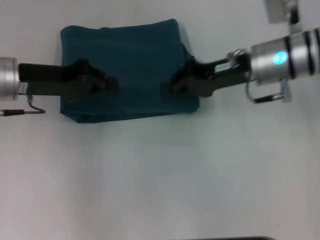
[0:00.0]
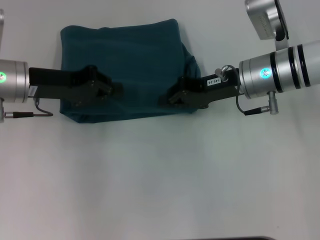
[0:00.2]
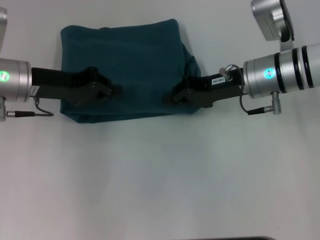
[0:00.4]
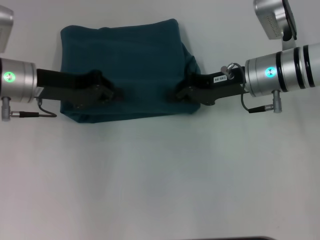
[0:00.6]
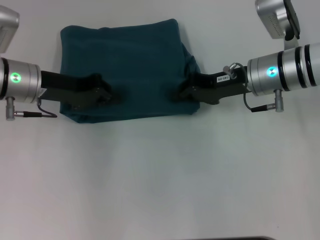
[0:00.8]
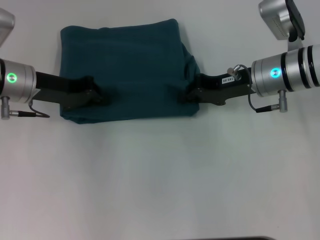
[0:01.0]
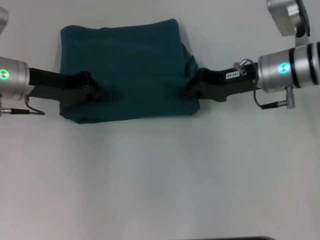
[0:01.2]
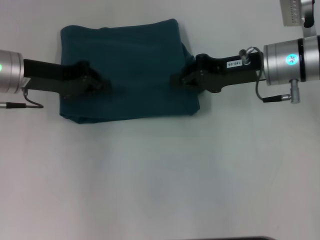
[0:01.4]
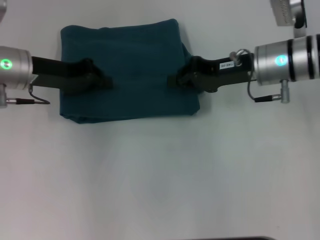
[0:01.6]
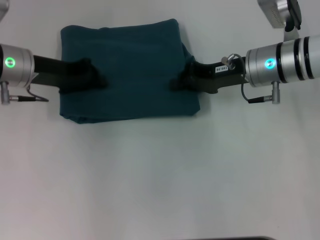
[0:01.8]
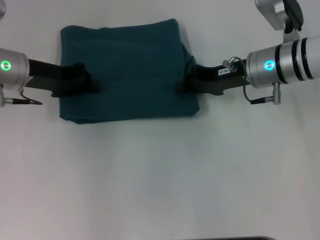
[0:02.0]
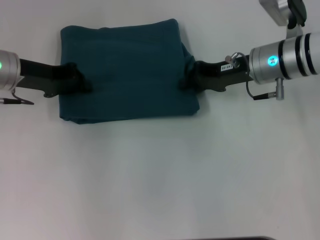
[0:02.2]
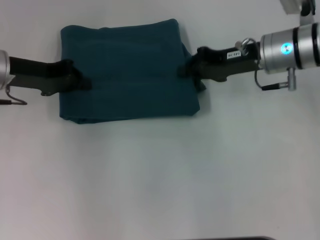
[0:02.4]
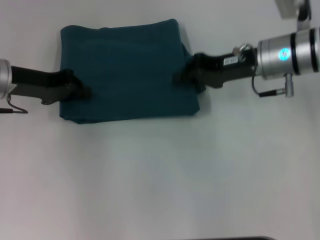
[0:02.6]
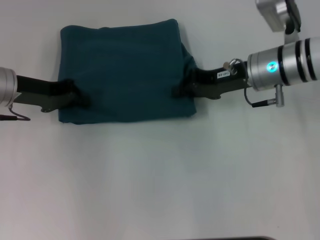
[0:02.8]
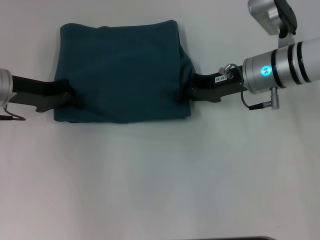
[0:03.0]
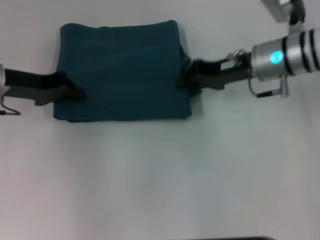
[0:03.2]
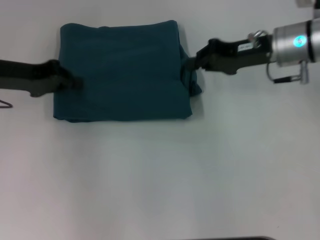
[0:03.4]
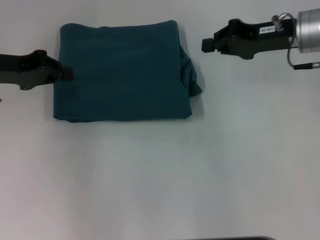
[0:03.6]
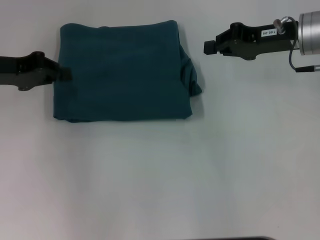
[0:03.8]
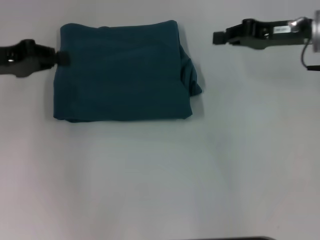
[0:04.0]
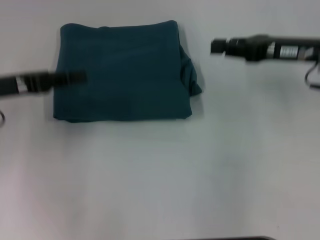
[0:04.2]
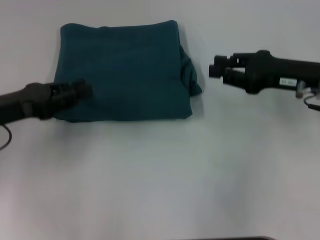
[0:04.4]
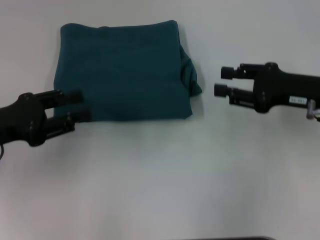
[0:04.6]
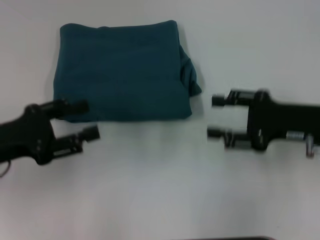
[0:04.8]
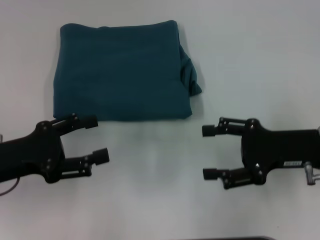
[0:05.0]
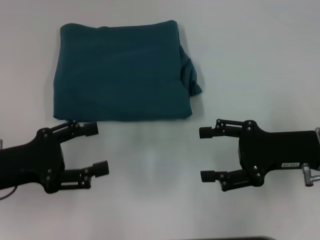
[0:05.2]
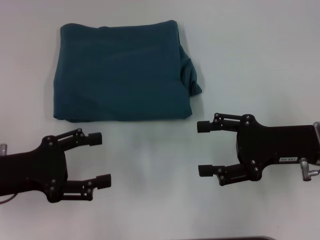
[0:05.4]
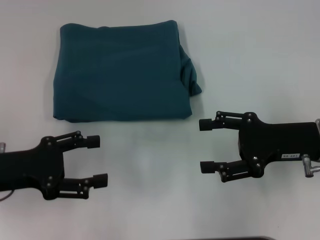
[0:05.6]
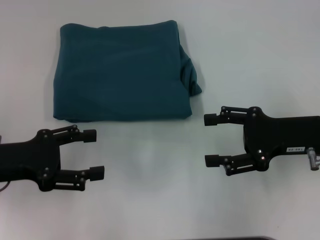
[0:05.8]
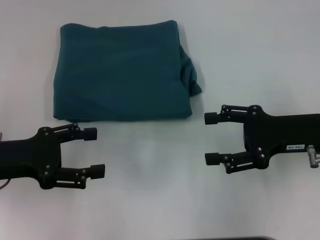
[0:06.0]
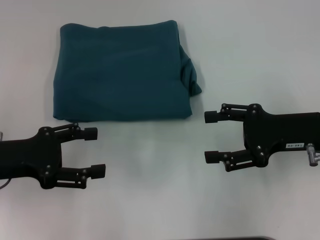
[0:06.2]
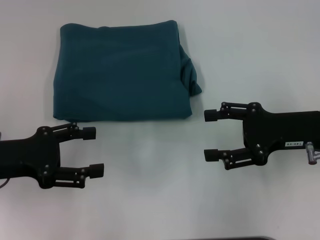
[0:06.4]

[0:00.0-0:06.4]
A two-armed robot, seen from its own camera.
0:00.0 to 0:01.6: The grippers make only small movements.
0:01.6 to 0:03.2: The grippers stay close to where they were, moving slightly.
0:03.2 to 0:04.8: The left gripper is displaced backward by about 15 cm, and opens up; the right gripper moves backward and to the right, approximately 15 cm, and opens up.
0:04.8 to 0:06.4: The left gripper opens.

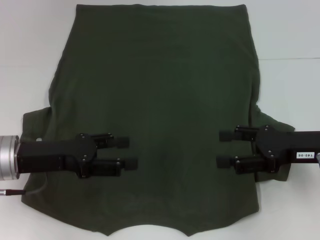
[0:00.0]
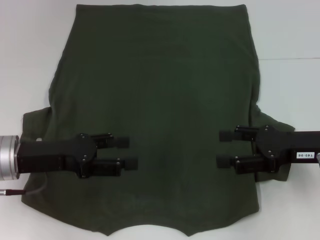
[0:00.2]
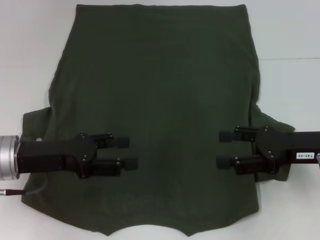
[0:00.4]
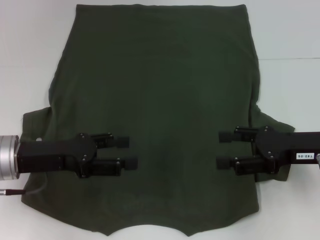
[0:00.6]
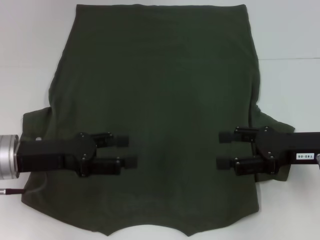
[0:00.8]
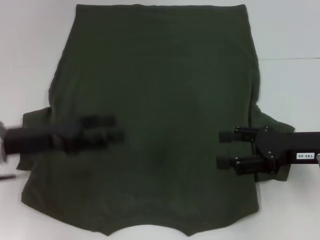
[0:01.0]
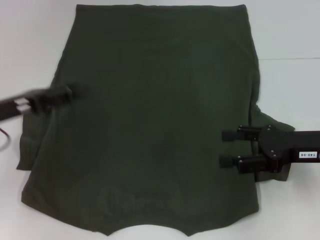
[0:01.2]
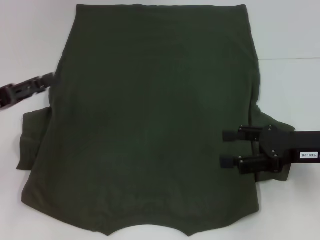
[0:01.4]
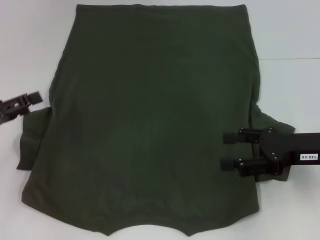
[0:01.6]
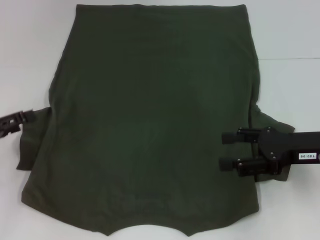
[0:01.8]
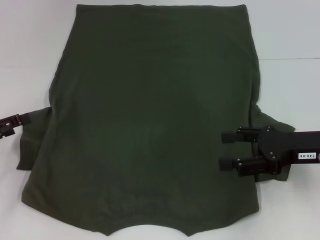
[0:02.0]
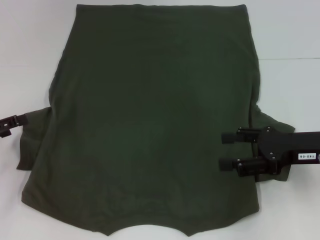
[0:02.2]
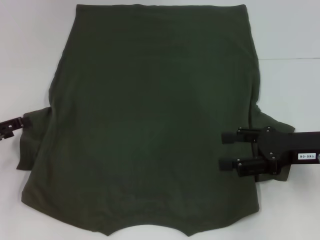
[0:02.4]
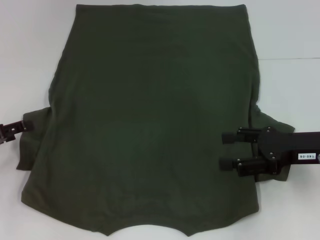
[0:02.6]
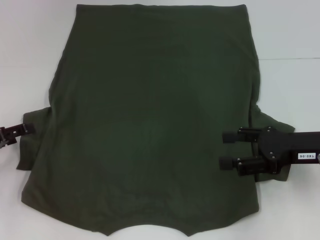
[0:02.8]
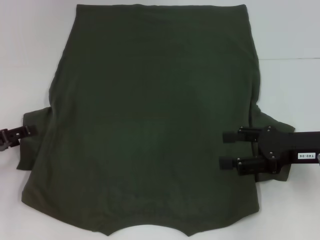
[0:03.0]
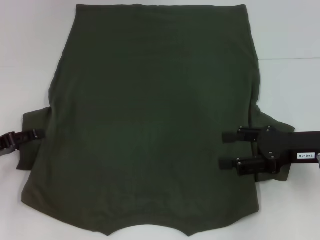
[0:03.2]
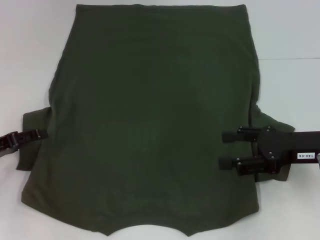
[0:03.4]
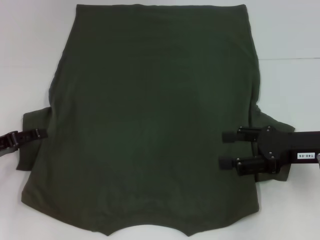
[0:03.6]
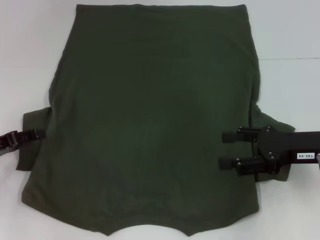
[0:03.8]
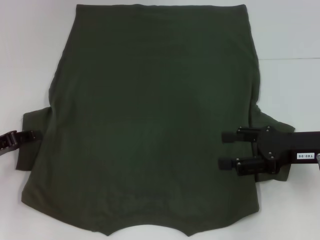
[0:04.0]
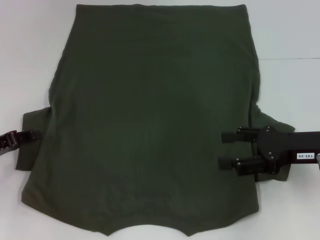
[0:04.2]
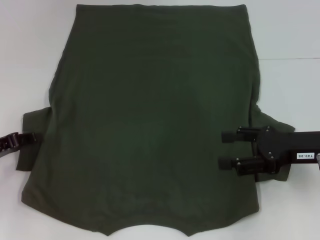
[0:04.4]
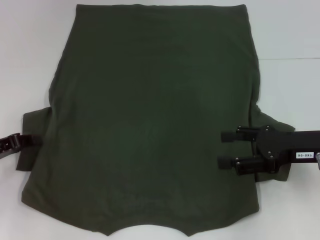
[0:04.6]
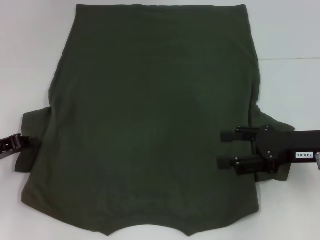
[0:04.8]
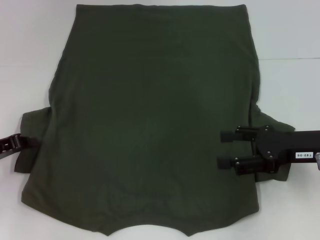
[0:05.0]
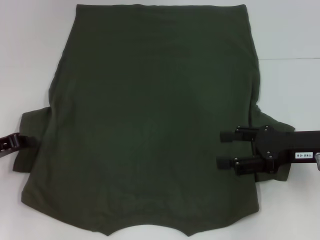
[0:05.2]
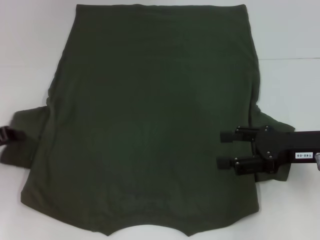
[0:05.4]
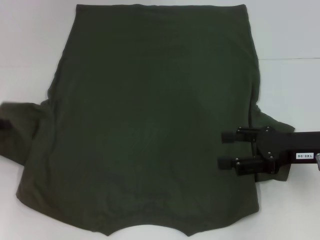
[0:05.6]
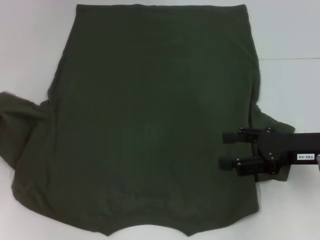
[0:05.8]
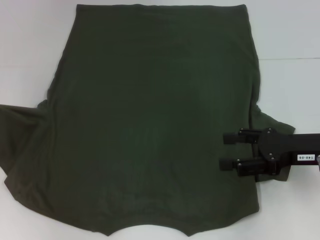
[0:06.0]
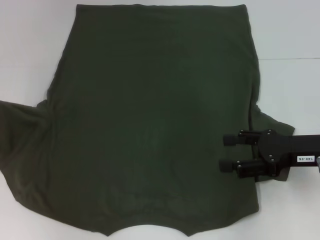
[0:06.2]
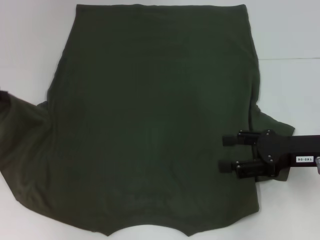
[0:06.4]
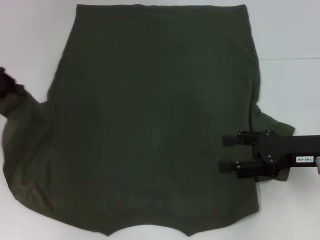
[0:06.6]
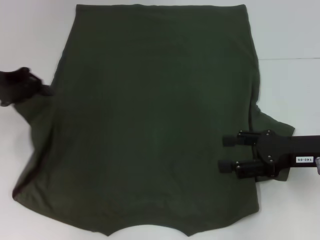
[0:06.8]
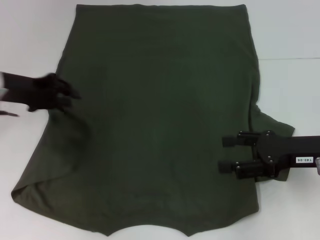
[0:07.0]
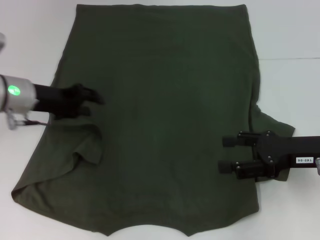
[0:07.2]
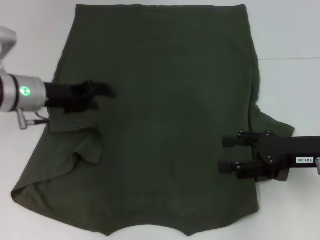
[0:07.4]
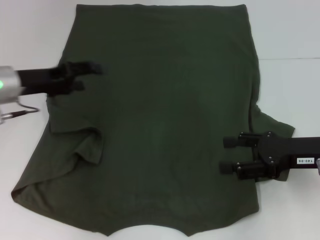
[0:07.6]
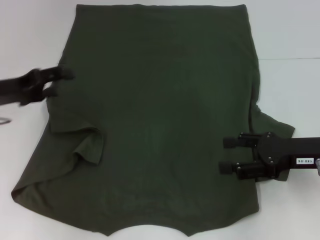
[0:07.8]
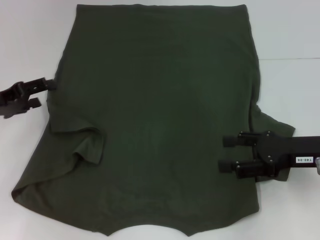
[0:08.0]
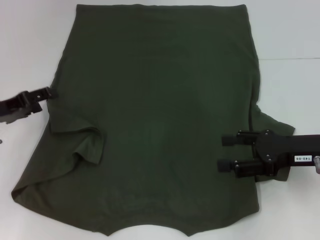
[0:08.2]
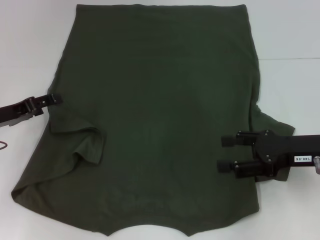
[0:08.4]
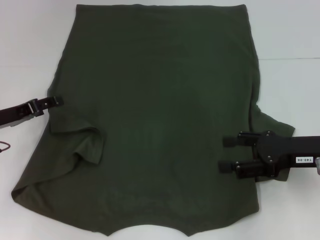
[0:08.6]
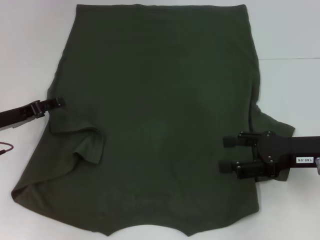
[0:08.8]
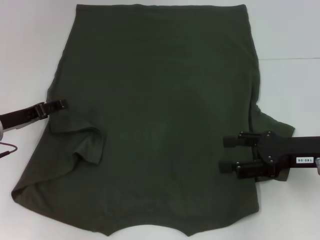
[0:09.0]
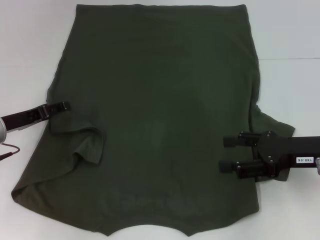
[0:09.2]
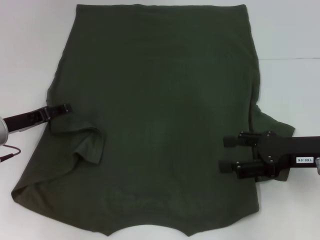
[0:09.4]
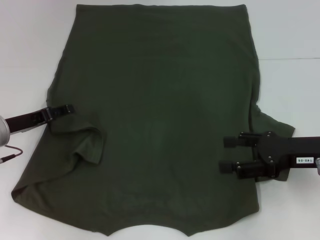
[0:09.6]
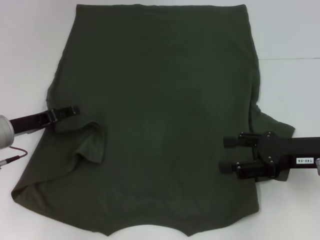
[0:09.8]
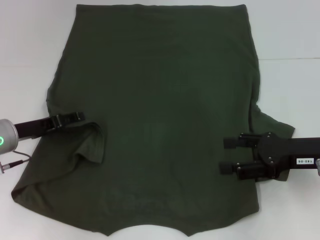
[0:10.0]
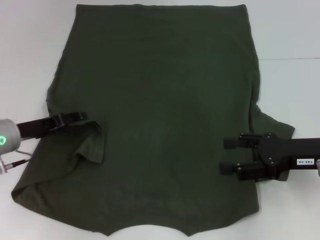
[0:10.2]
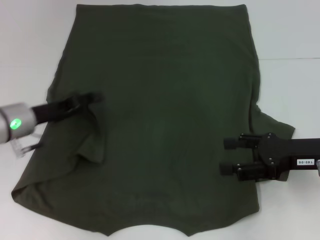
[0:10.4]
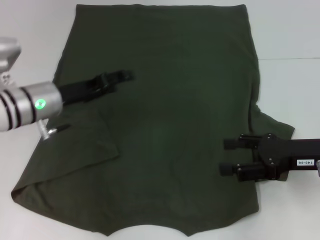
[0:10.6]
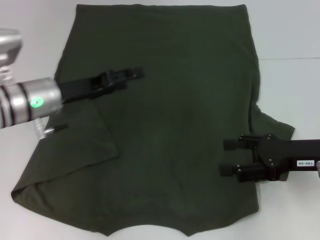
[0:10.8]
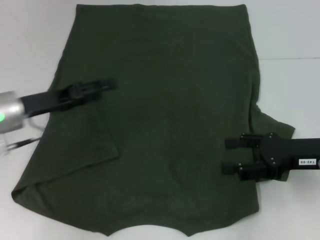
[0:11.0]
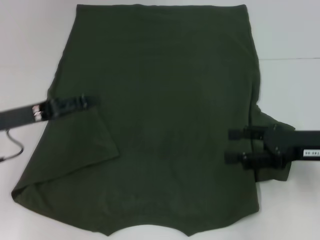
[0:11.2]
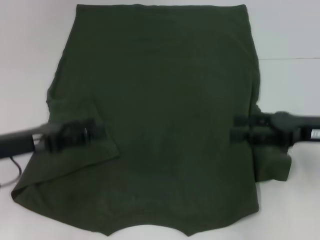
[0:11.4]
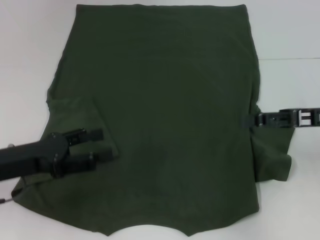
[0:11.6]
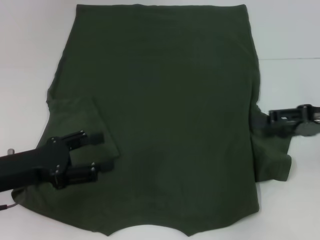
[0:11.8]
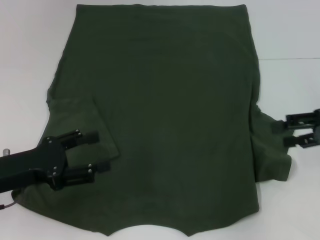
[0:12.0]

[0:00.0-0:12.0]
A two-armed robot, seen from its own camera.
0:00.0 to 0:01.6: The left gripper heads to the left, covering roughly 10 cm.
0:01.6 to 0:03.0: The grippers move only a little.
0:03.0 to 0:04.4: The left gripper closes up.
0:04.4 to 0:06.0: The left gripper travels upward and to the left by roughly 10 cm, and closes its fingers.
0:06.0 to 0:07.6: The left gripper heads to the right, covering approximately 15 cm, and opens its fingers.
0:07.6 to 0:09.0: The left gripper is displaced downward by approximately 5 cm.
0:09.0 to 0:10.4: The left gripper changes place by about 5 cm.
0:10.4 to 0:12.0: The left gripper moves backward, approximately 10 cm; the right gripper goes approximately 10 cm to the right and upward.

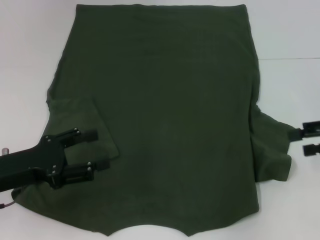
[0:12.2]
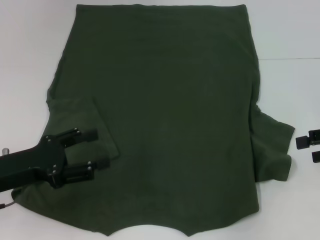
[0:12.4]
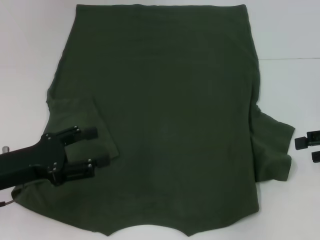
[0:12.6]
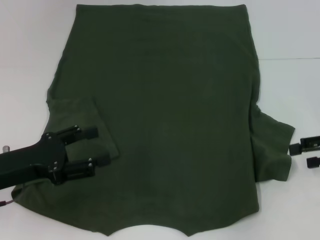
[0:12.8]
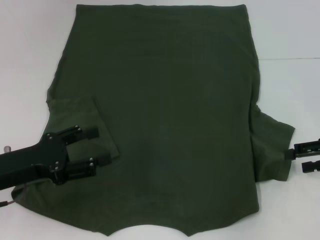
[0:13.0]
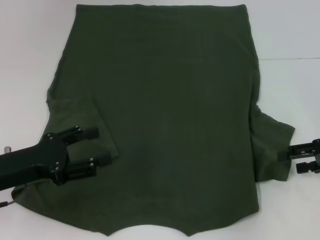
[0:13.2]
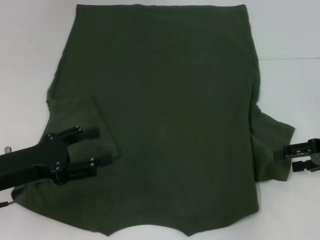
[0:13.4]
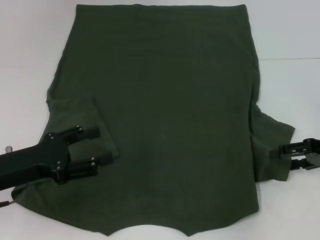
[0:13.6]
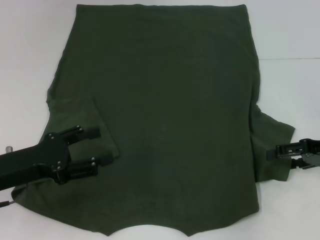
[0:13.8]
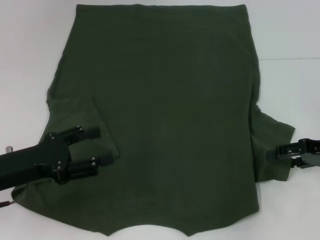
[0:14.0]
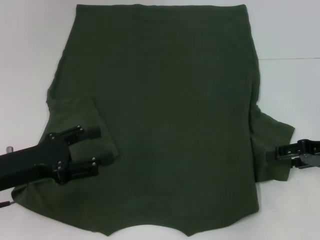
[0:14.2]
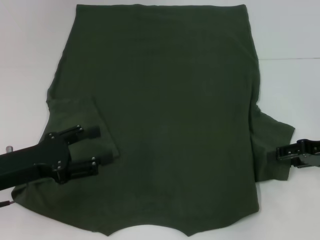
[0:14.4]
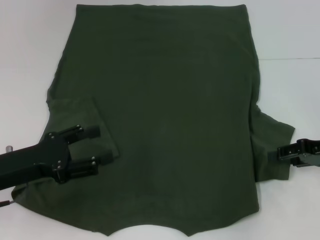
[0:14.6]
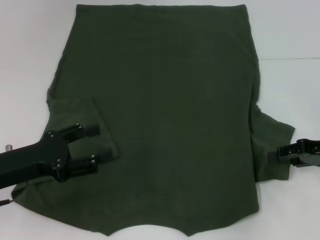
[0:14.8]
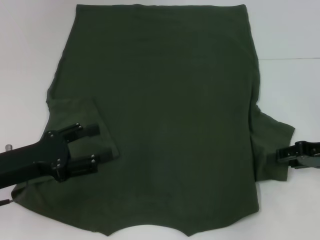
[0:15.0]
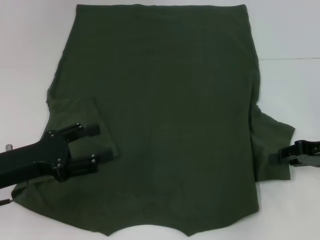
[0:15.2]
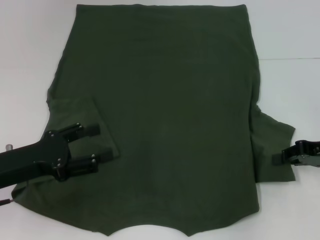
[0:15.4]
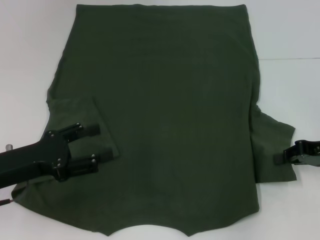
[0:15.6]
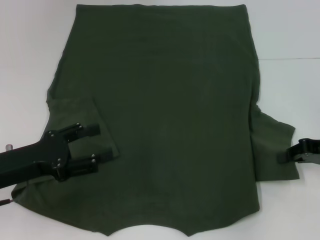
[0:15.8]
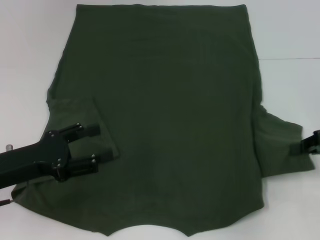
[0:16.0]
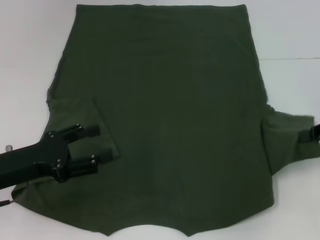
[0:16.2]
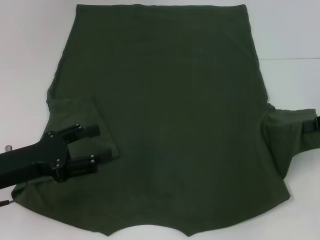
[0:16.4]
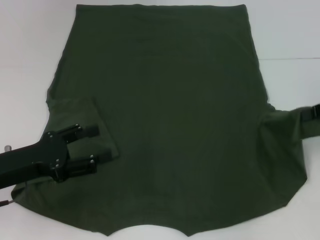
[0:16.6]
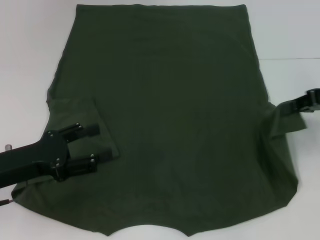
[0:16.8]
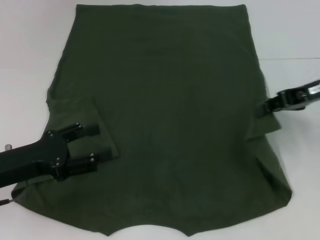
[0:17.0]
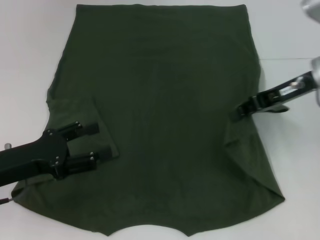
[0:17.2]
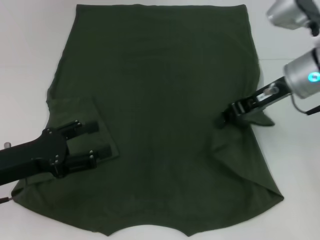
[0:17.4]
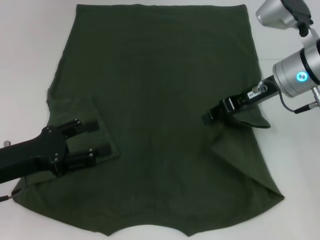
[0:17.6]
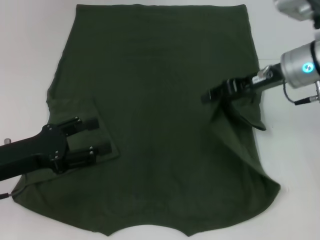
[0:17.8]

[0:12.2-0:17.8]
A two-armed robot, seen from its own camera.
0:12.2 to 0:13.6: The right gripper shifts by some 5 cm.
0:13.6 to 0:15.0: Both grippers stay put.
0:15.0 to 0:16.4: The right gripper is displaced upward by about 5 cm, and closes up.
0:16.4 to 0:17.8: The right gripper moves to the left and forward, roughly 15 cm.
